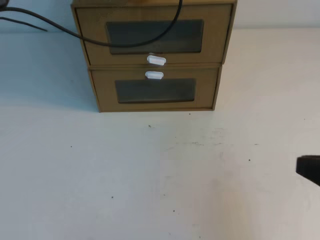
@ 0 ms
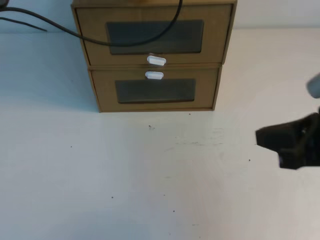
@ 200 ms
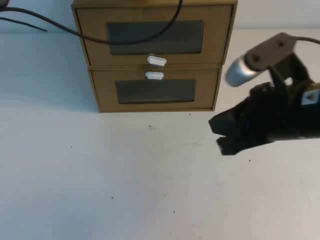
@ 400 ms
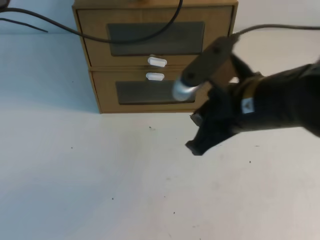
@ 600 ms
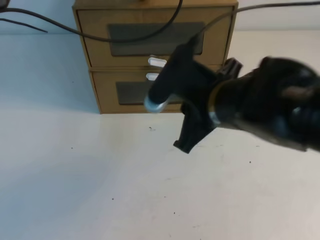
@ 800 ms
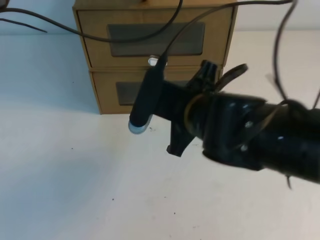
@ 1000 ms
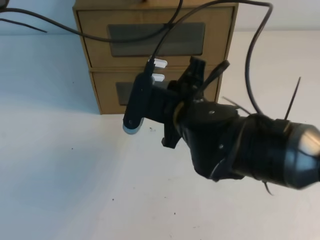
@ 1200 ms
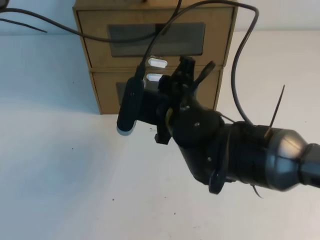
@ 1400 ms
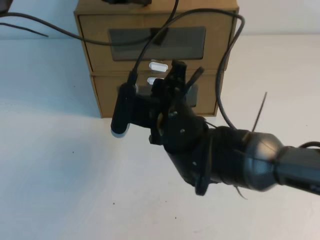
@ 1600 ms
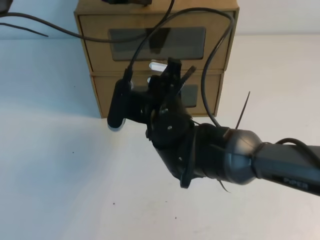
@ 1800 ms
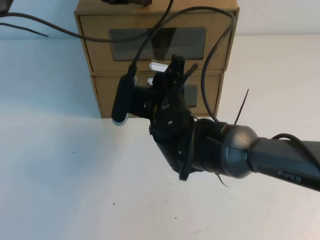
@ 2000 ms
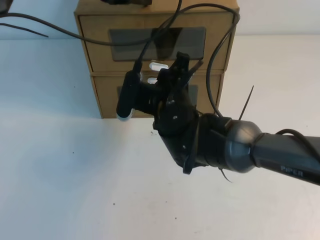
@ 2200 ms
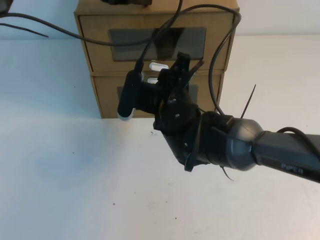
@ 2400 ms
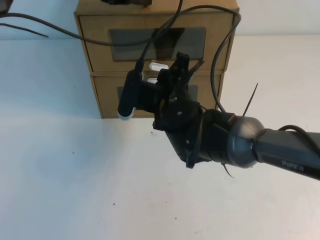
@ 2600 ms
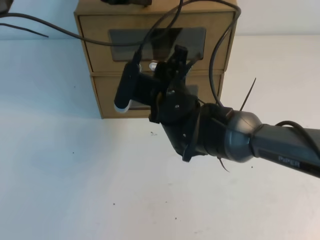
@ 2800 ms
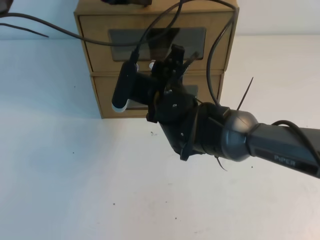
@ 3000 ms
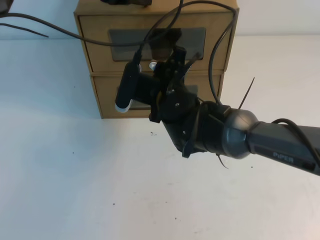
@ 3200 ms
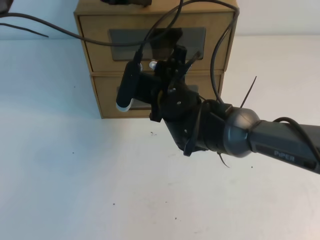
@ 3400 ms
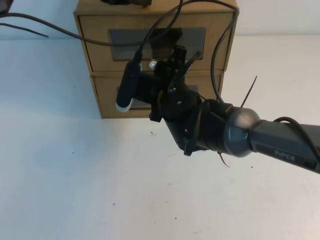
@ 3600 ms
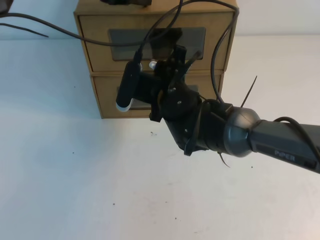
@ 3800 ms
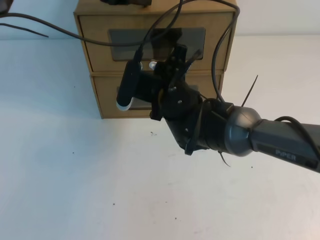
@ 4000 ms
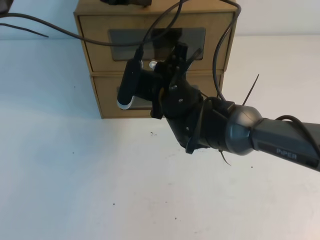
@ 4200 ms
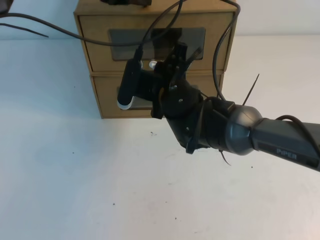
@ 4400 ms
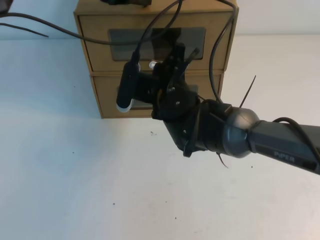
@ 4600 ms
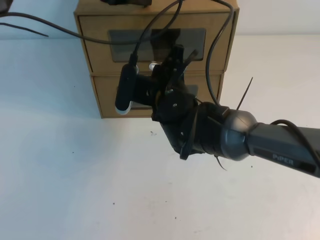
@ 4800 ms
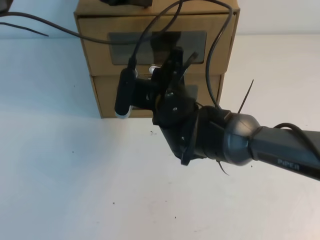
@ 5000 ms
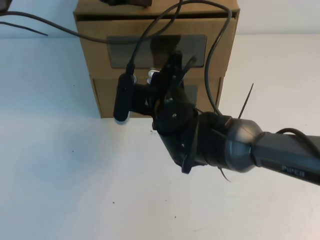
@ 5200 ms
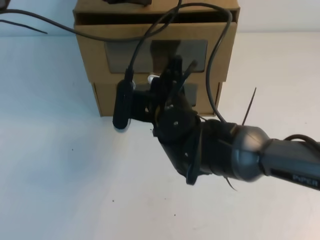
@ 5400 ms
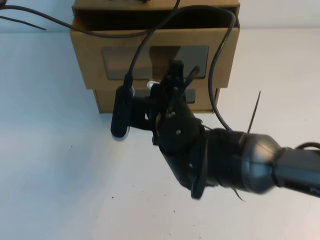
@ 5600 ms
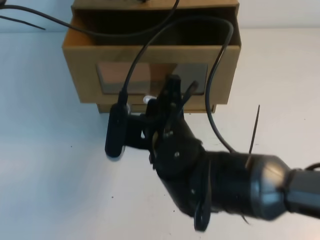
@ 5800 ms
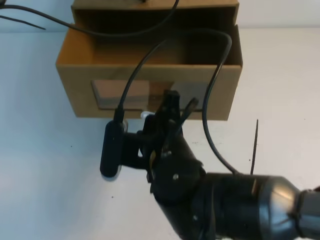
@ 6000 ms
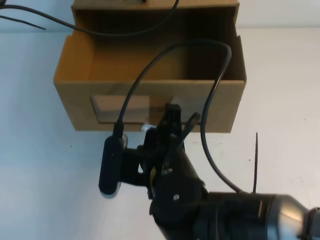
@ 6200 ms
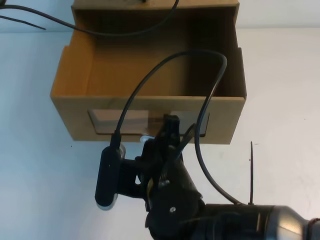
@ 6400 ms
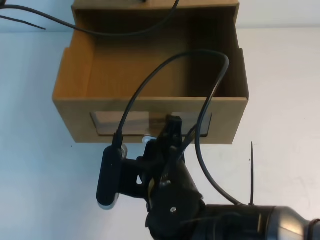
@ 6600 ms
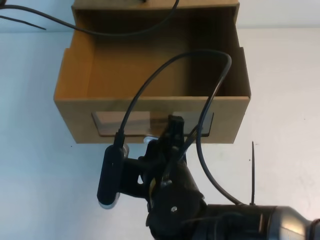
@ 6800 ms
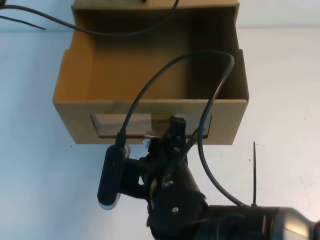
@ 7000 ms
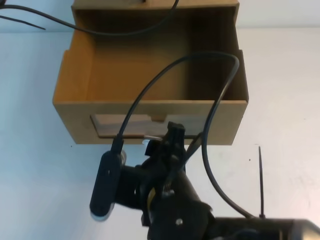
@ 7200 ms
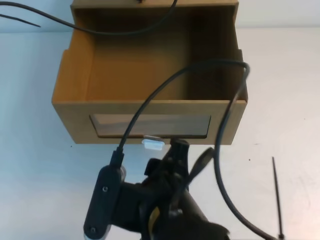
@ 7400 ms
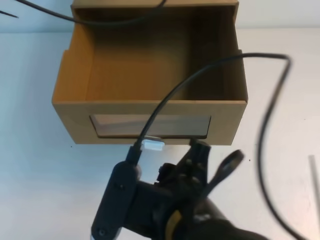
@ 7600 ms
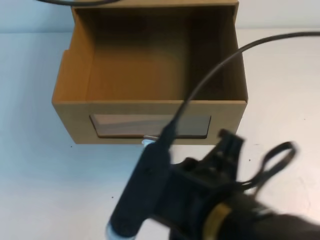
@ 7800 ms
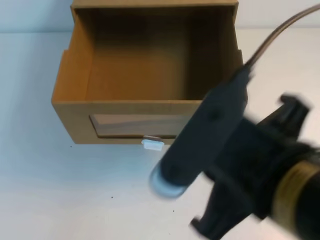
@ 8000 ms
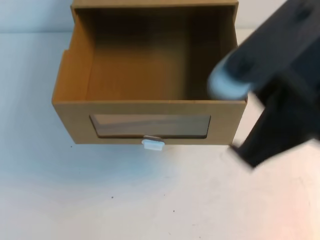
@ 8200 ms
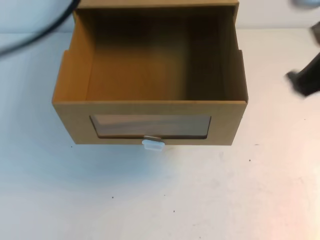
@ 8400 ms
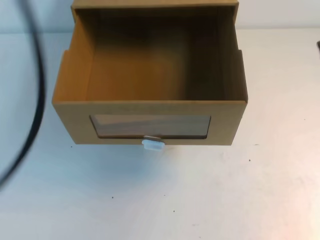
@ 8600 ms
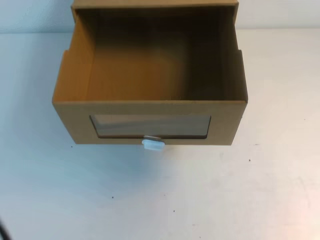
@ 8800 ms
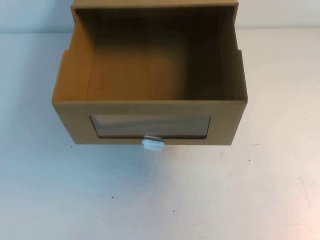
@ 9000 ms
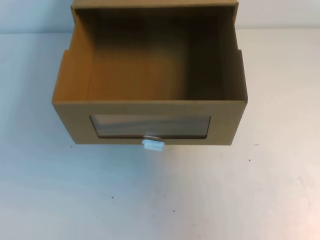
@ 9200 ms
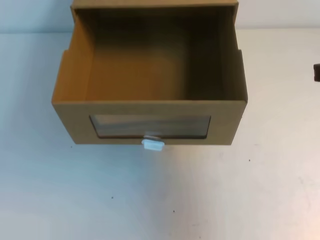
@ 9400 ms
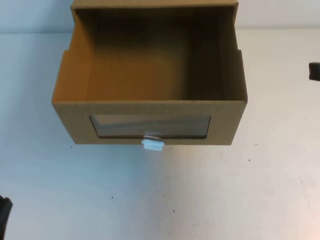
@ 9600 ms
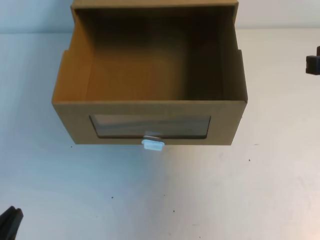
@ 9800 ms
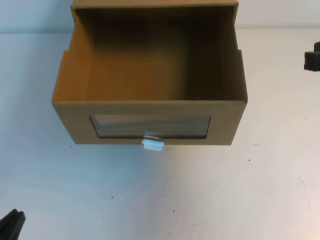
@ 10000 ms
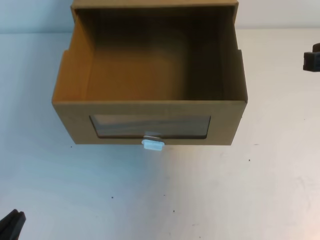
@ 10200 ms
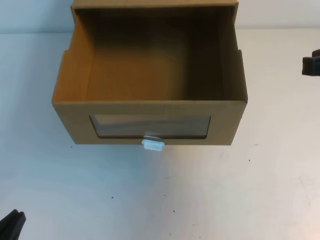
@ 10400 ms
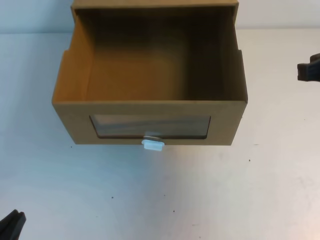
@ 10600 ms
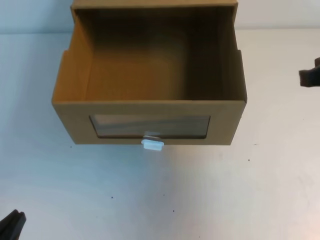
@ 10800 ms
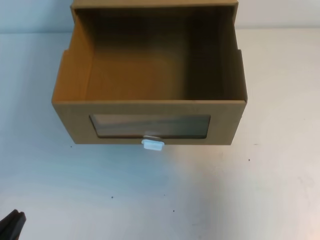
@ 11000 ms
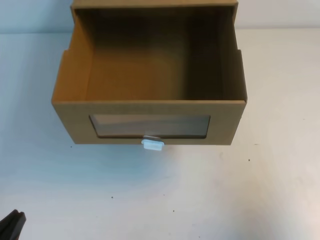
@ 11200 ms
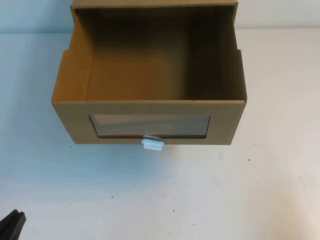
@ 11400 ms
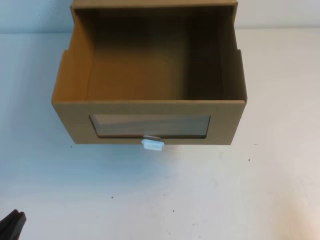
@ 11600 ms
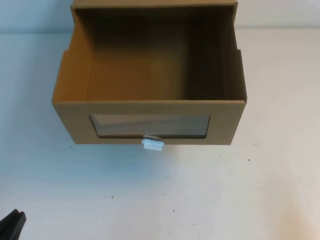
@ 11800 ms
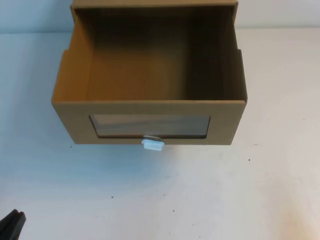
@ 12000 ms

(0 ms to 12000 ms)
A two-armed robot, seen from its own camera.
Task of the whole recording: open the shoebox on the table.
0 ms - 1600 ms: The right gripper travels to the left and forward by approximately 30 cm, and opens up.
1600 ms - 3000 ms: The right gripper heads forward, covering roughly 5 cm.
3000 ms - 4400 ms: The right gripper closes.
4400 ms - 6000 ms: The right gripper moves backward, approximately 10 cm.
6000 ms - 7600 ms: The right gripper travels backward by about 10 cm, and opens its fingers.
7600 ms - 9000 ms: The left gripper moves backward, about 35 cm. The right gripper goes roughly 30 cm to the right and upward, and closes up.
9000 ms - 10400 ms: The right gripper is displaced downward by roughly 5 cm; the left gripper goes approximately 25 cm downward.
10400 ms - 12000 ms: The right gripper goes approximately 25 cm downward, backward and to the right.

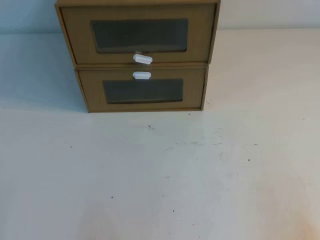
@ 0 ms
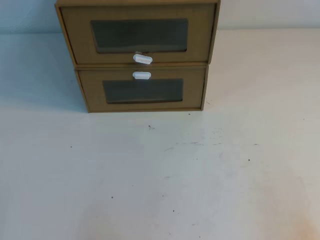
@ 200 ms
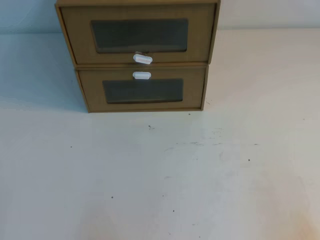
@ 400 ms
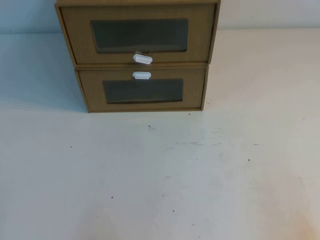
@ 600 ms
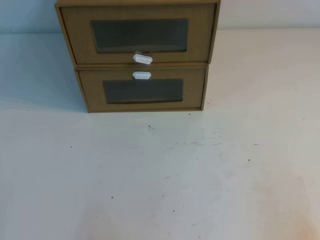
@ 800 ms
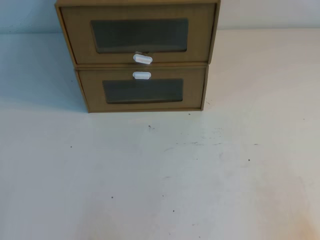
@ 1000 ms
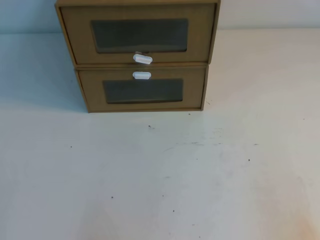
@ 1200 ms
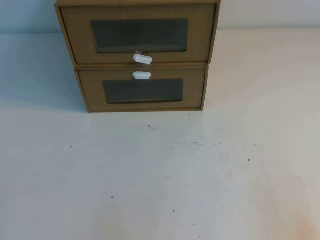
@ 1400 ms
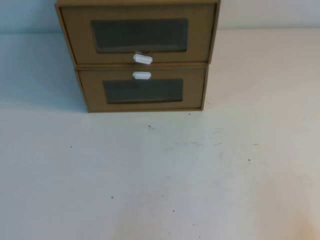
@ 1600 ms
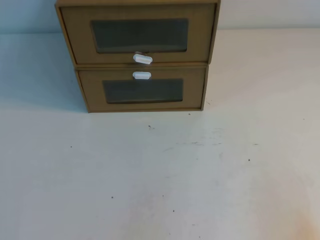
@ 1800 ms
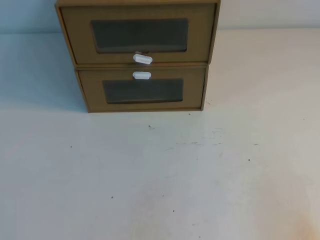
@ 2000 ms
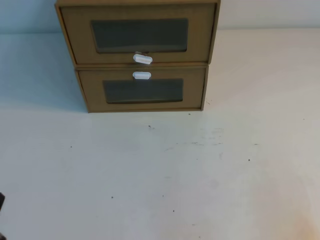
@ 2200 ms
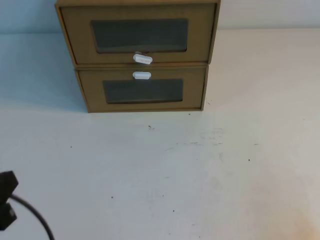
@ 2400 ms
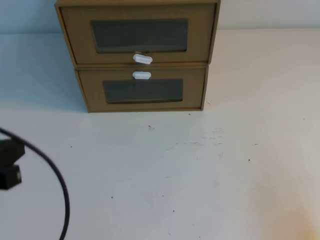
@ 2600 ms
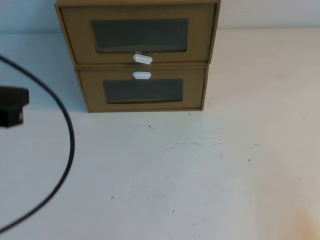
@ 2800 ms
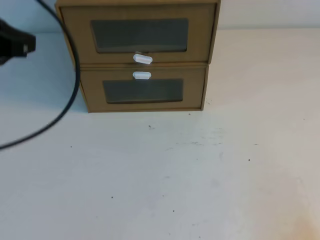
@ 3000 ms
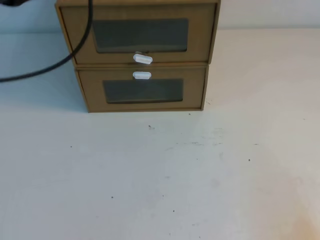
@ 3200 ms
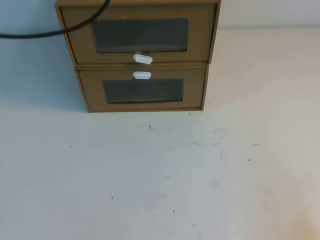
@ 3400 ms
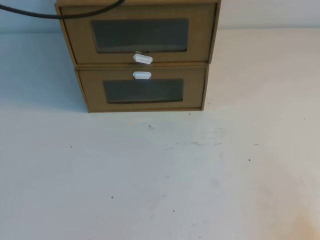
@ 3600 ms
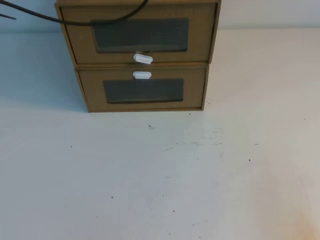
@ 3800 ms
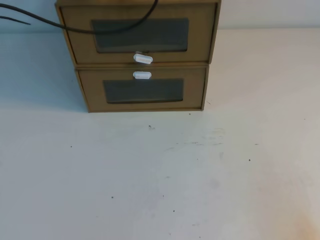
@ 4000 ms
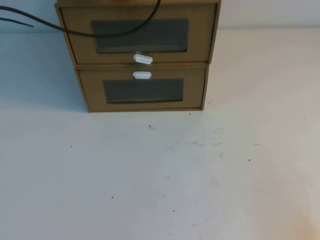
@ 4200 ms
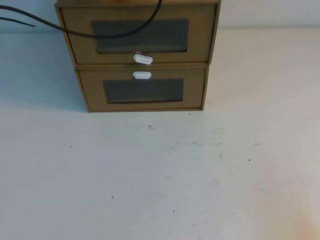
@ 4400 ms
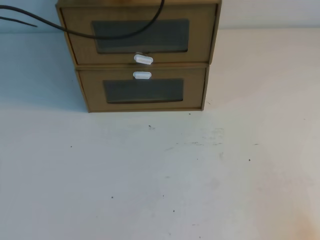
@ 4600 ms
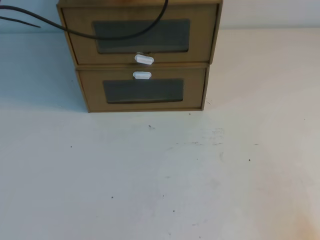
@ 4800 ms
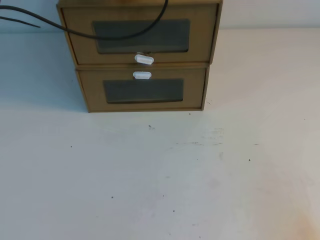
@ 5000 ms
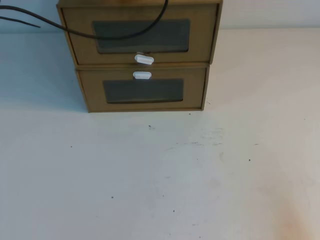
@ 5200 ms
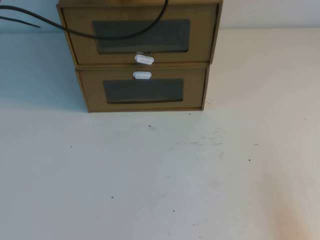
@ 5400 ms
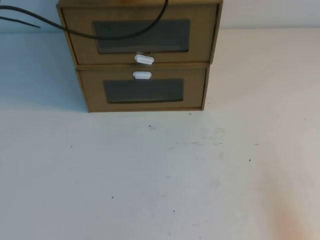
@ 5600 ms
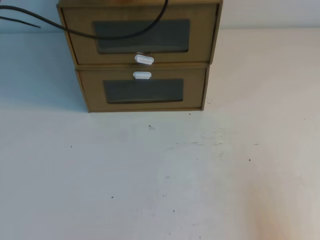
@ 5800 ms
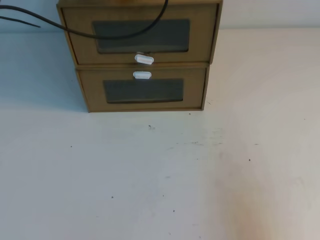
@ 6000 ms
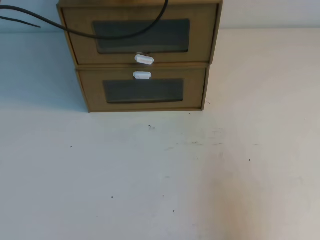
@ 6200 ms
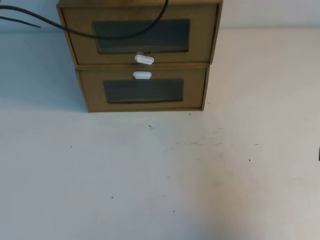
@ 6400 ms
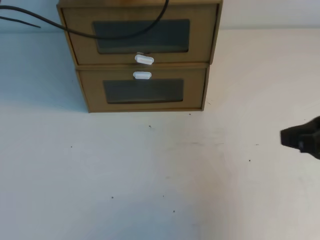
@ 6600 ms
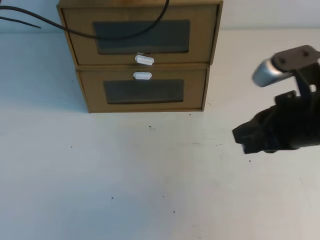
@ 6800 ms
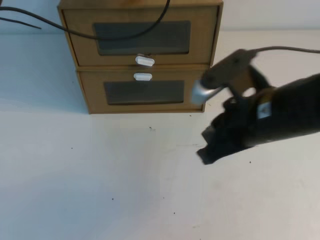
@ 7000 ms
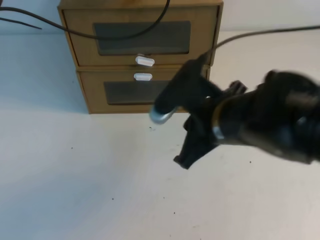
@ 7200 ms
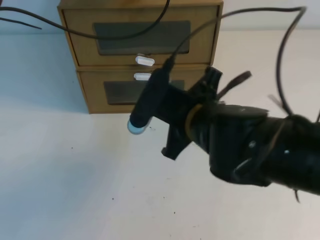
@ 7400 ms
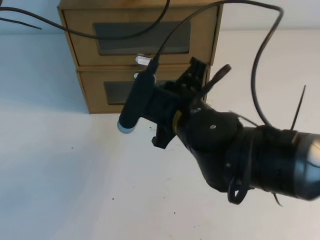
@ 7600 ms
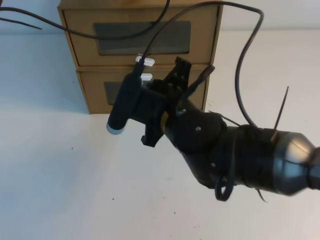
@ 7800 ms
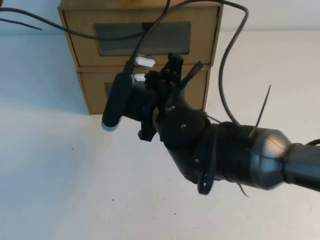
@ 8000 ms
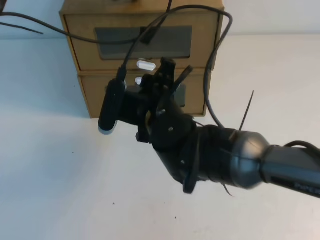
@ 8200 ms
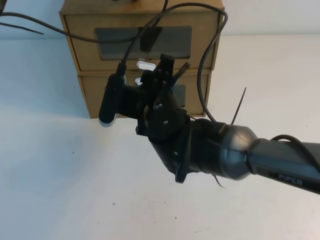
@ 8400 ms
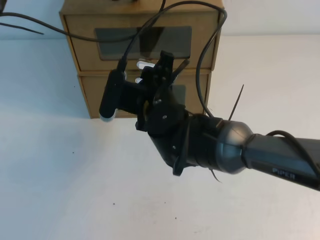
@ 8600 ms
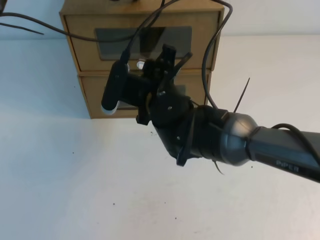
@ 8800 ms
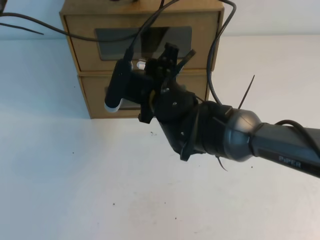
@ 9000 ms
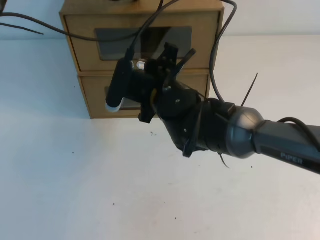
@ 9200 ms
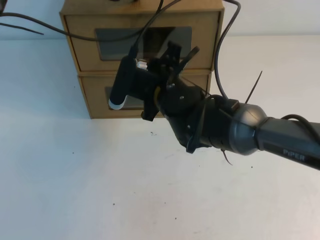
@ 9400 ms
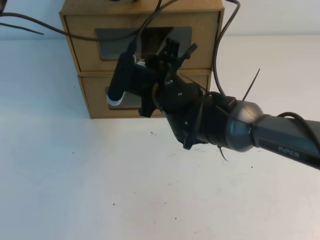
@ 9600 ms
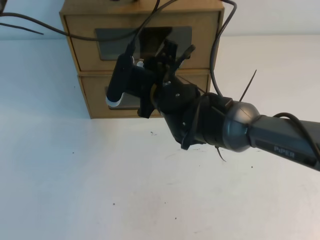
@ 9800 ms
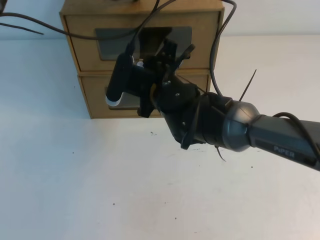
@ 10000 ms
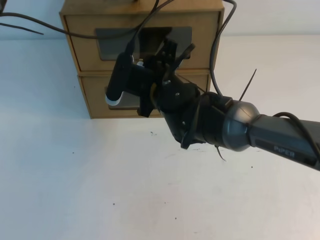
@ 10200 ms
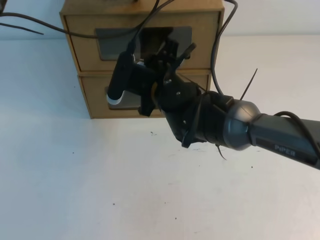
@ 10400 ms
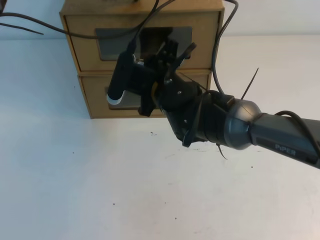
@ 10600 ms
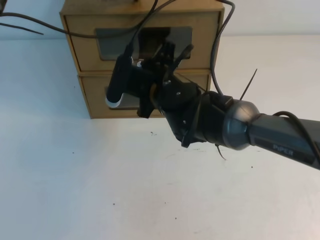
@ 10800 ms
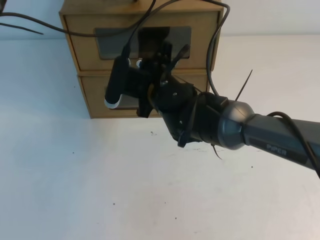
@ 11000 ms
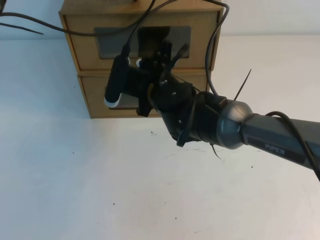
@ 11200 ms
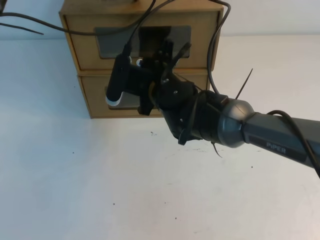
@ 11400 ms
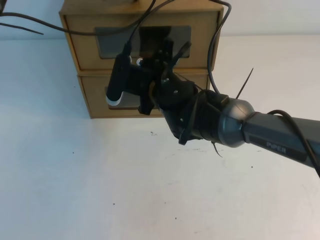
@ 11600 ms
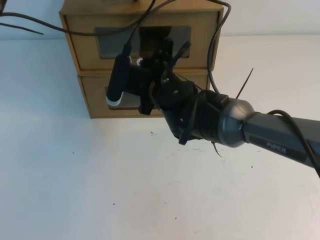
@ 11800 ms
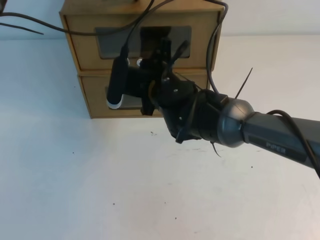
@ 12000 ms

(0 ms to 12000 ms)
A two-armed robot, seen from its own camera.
Task of the whole recording: open the shoebox on the table.
1600 ms - 3000 ms: The left gripper is displaced upward and forward by approximately 30 cm.
3000 ms - 4400 ms: The left gripper goes approximately 25 cm forward and to the right.
4400 ms - 6000 ms: The right gripper is displaced upward by approximately 10 cm.
6000 ms - 7600 ms: The right gripper shifts roughly 30 cm to the left and forward.
7600 ms - 9000 ms: The right gripper travels forward by about 10 cm, and opens up.
9000 ms - 10400 ms: The grippers move only a little.
10400 ms - 12000 ms: The right gripper closes its fingers.
